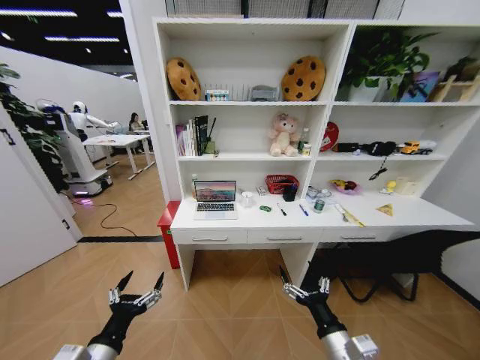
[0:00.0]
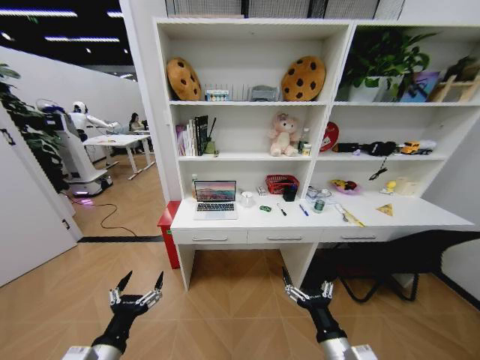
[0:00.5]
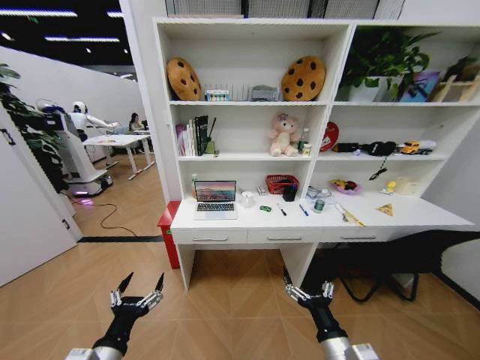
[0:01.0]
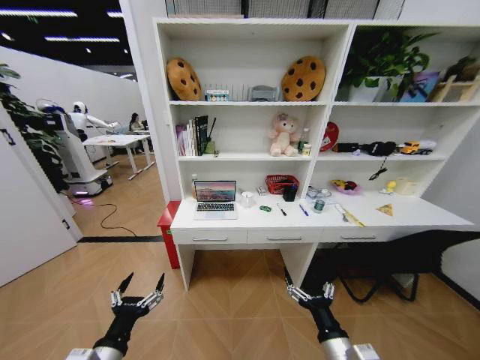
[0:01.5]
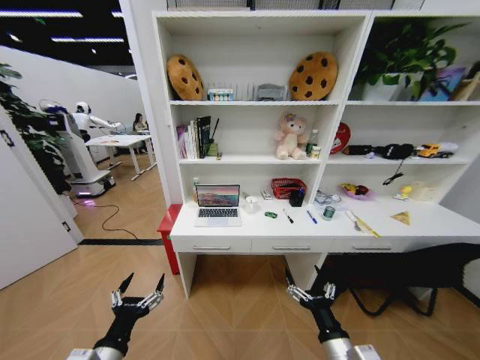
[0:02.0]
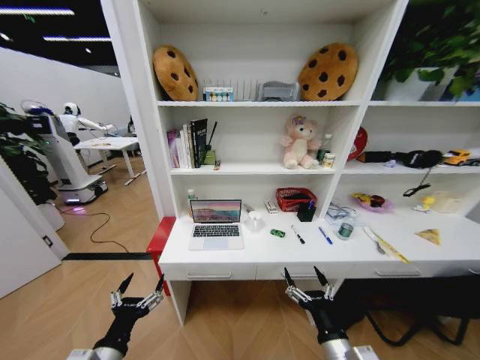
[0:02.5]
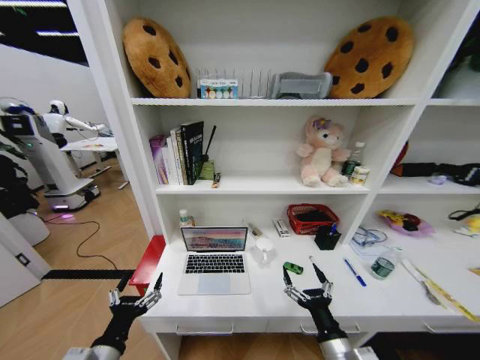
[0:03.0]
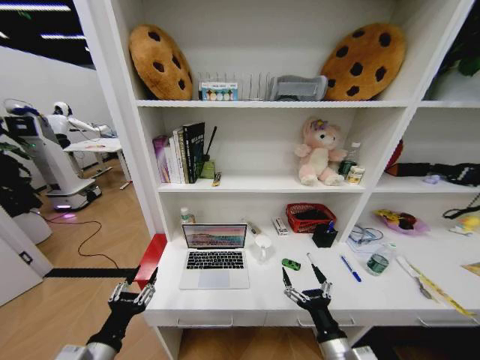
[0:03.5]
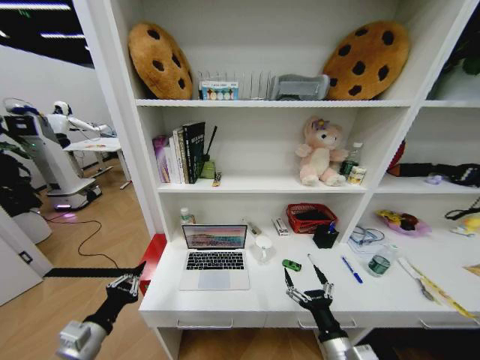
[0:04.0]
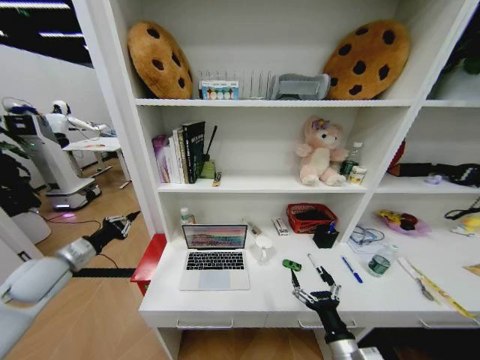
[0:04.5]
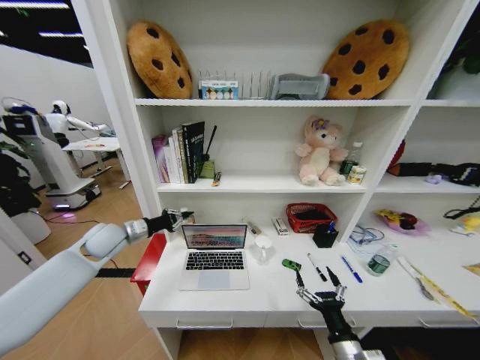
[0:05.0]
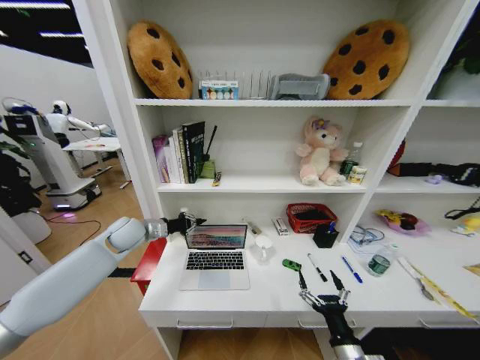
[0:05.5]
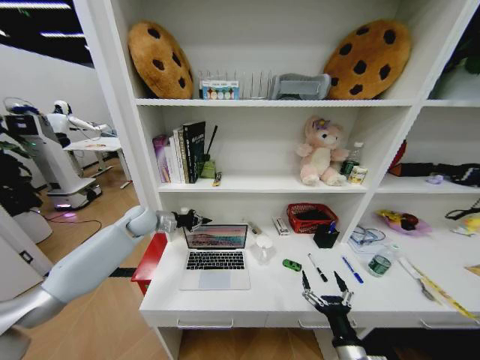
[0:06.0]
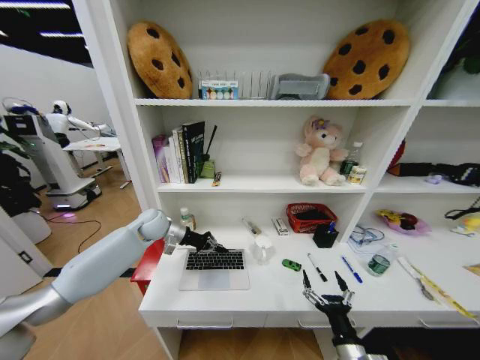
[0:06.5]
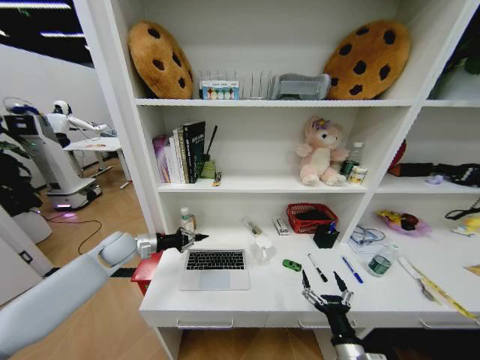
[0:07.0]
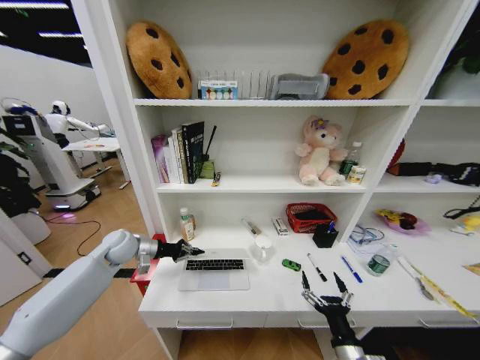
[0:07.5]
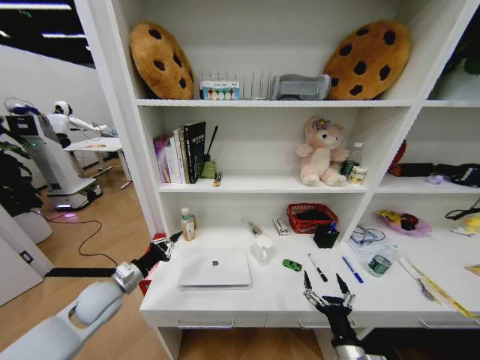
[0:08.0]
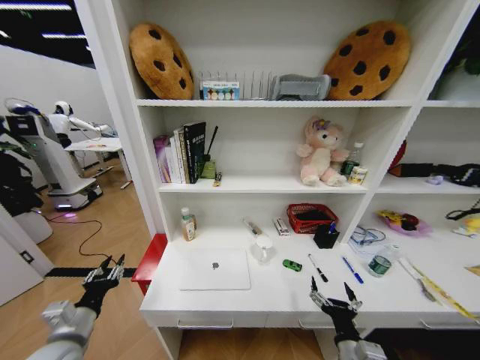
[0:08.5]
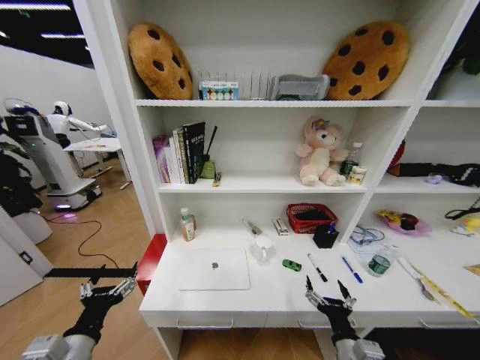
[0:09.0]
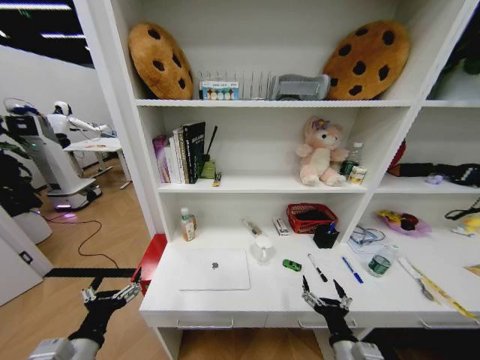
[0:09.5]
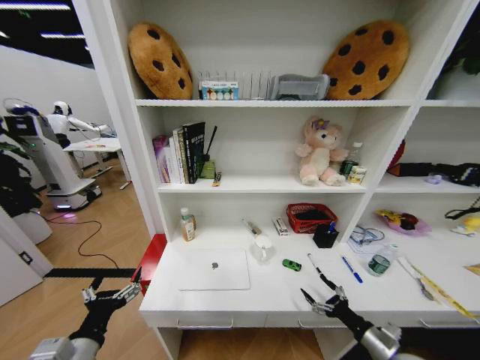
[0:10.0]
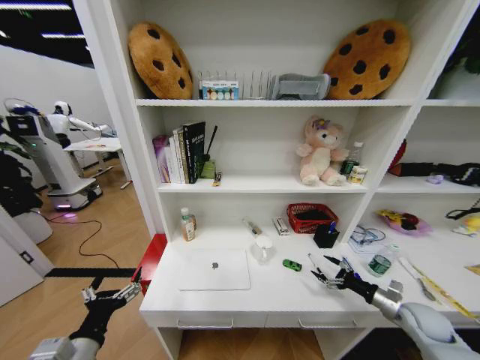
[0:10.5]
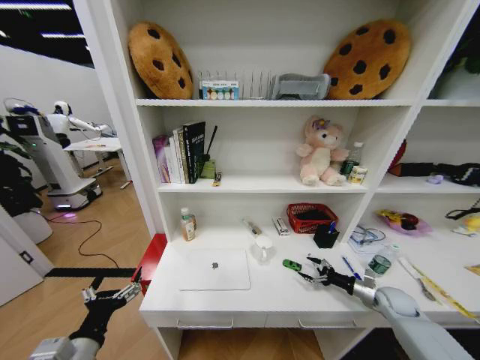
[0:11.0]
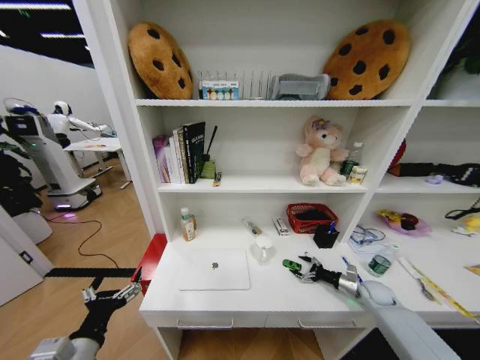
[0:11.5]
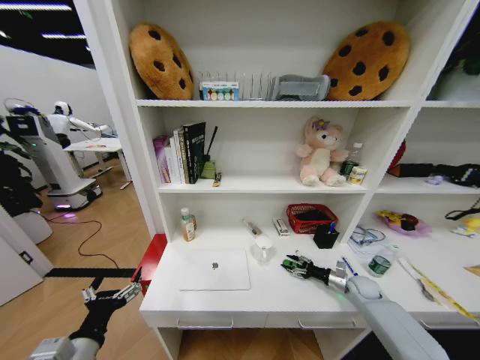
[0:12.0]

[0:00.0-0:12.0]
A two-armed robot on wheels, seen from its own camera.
Task of the whole recording: Organize the objects on the table.
0:02.0 to 0:04.0: The left gripper goes about 5 cm to the left, and closes up.
0:04.0 to 0:06.0: The left gripper travels forward by about 35 cm.
0:06.0 to 0:08.0: The left gripper travels backward and downward by approximately 25 cm.
0:08.0 to 0:10.0: The left gripper is displaced backward by approximately 20 cm, and opens. Meanwhile the right gripper shifts approximately 15 cm to the right.
0:10.0 to 0:12.0: The right gripper moves forward, about 25 cm.

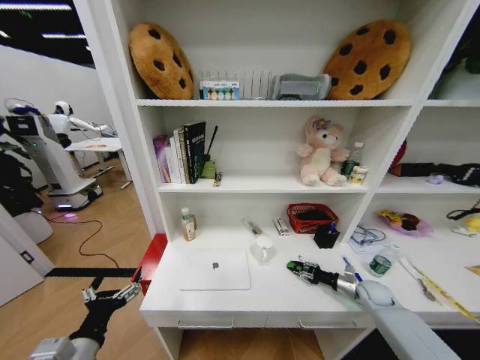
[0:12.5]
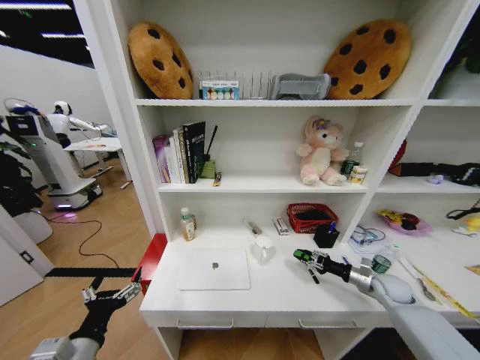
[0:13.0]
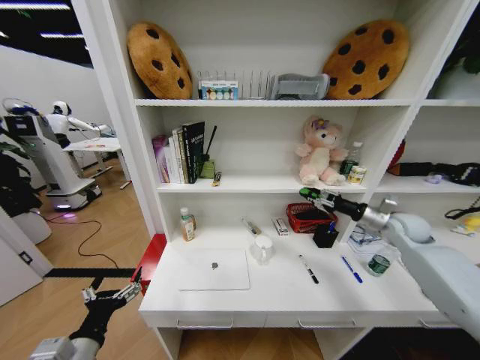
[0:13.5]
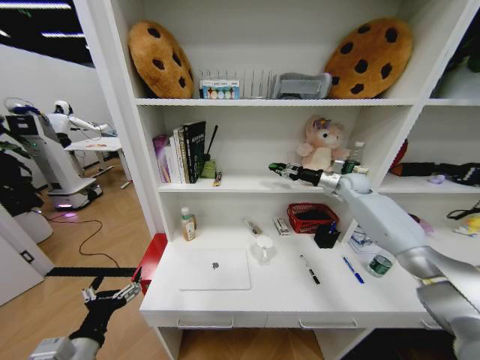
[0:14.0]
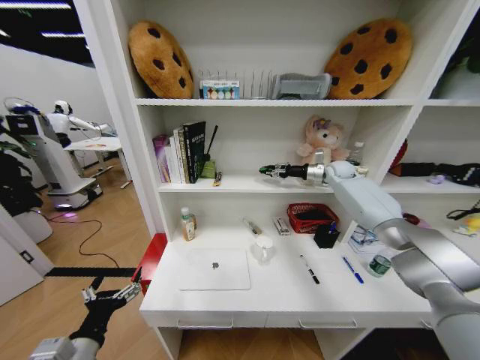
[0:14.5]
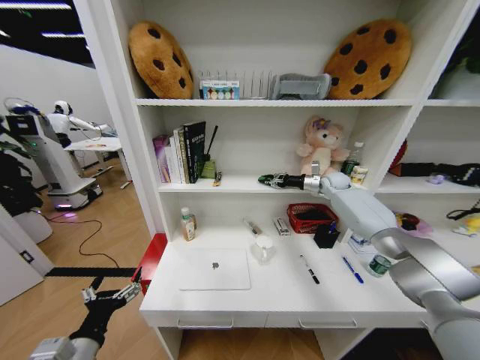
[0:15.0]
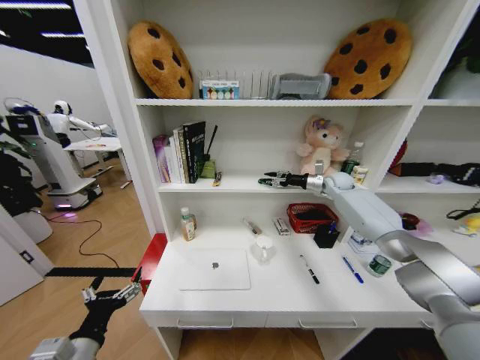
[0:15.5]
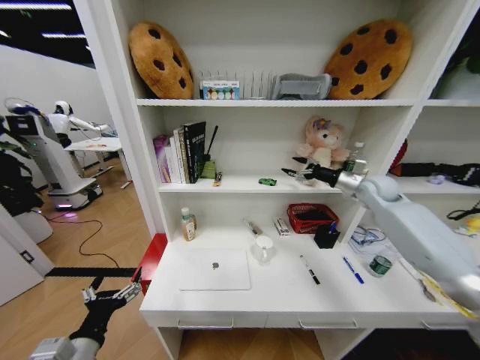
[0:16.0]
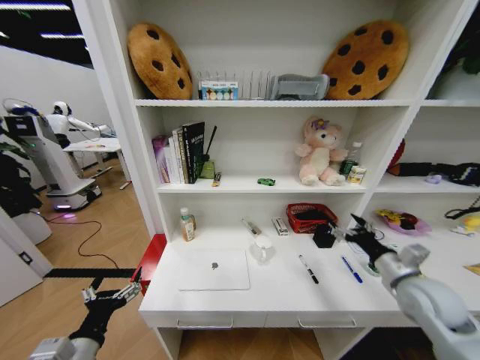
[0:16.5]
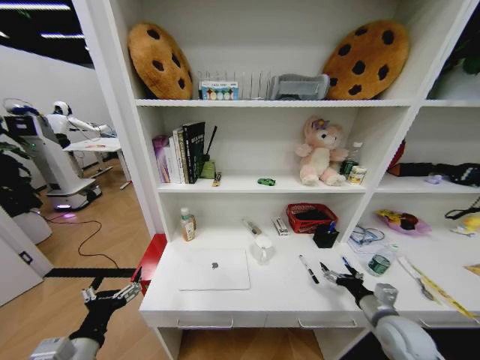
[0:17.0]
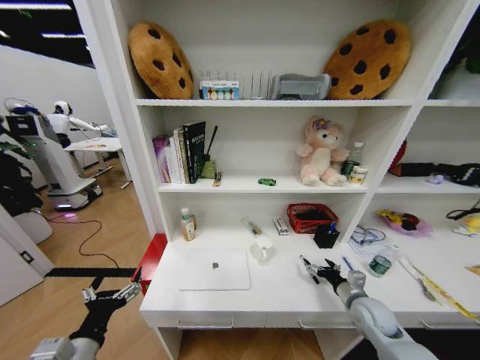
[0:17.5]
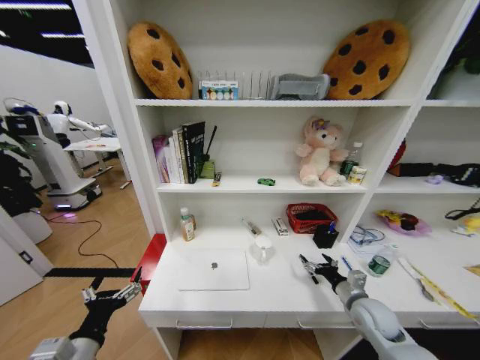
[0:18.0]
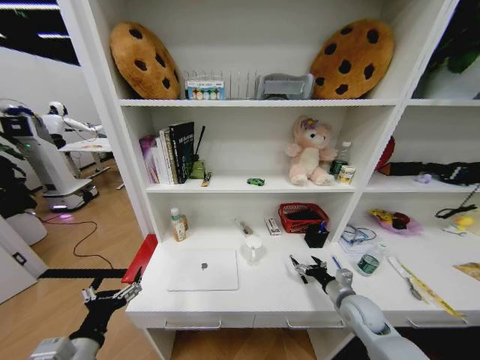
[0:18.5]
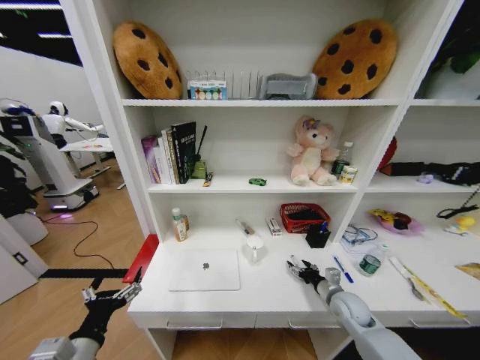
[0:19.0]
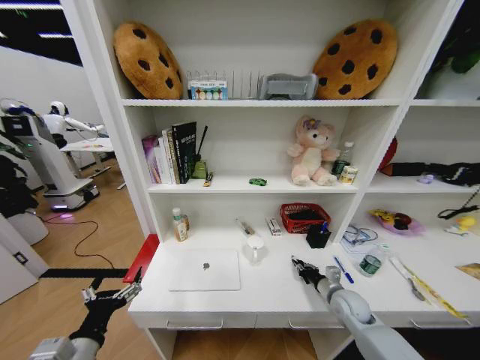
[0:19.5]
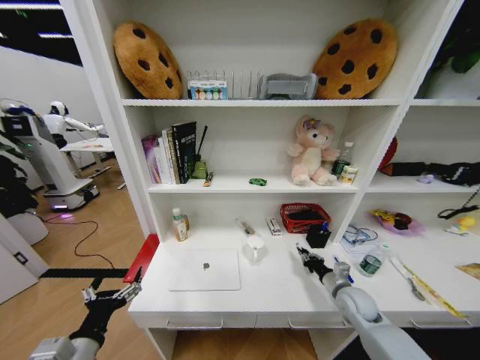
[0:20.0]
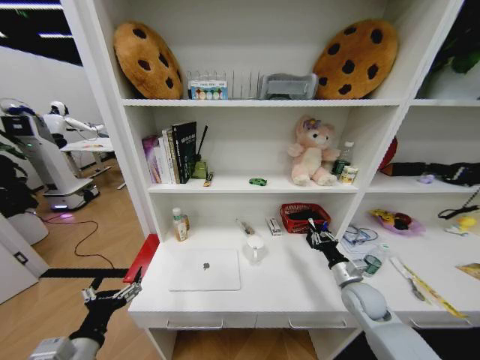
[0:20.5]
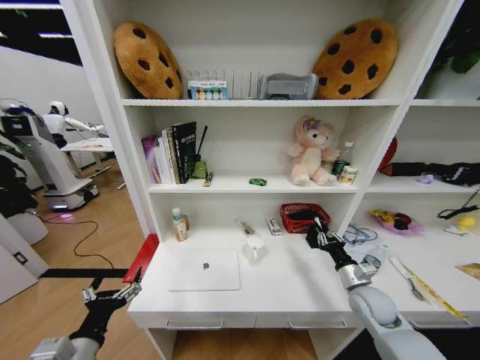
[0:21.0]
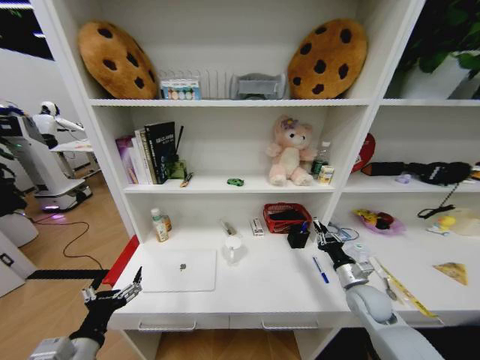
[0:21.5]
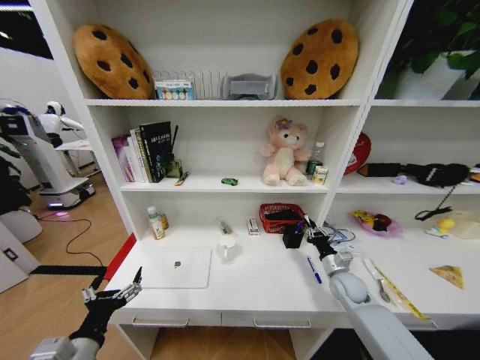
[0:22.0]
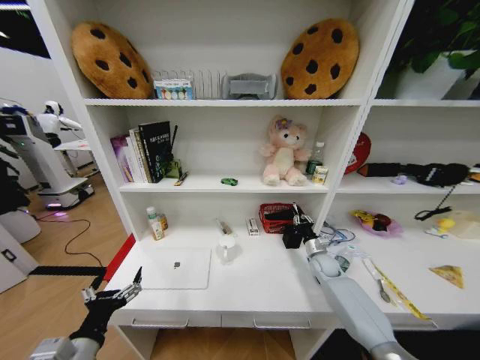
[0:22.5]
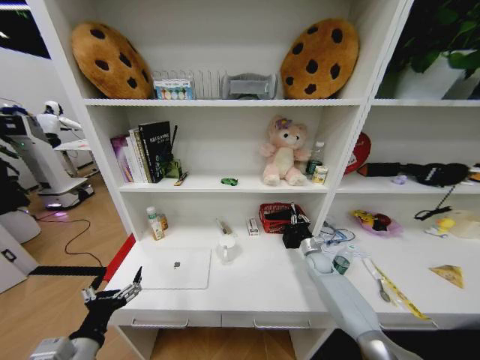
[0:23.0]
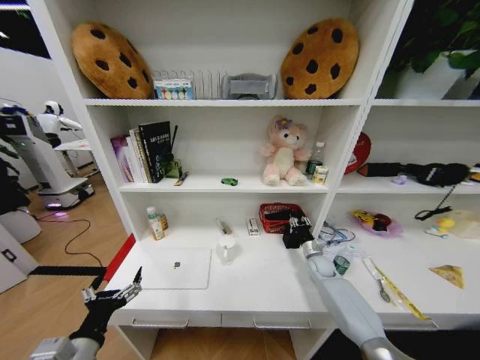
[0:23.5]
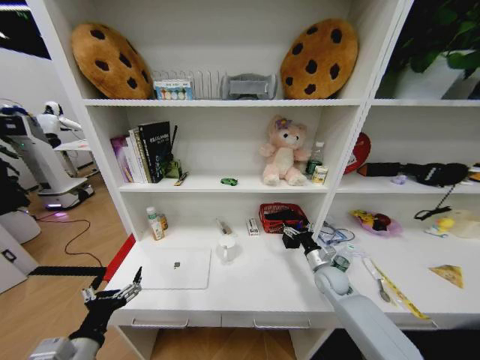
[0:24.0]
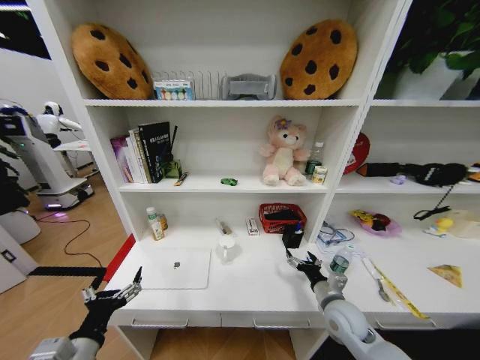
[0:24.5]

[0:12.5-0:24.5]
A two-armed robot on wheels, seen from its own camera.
Task of the whole recording: Organize the objects on the table.
0:12.5 to 0:14.5: The right gripper moves upward and forward, about 40 cm.
0:14.5 to 0:16.5: The right gripper goes some 40 cm backward, and opens its fingers.
0:16.5 to 0:18.5: The right gripper heads downward, covering approximately 15 cm.
0:18.5 to 0:20.5: The right gripper closes up.
0:20.5 to 0:22.5: The right gripper moves forward and downward, some 15 cm.
0:22.5 to 0:24.5: The right gripper goes approximately 20 cm backward, and opens.

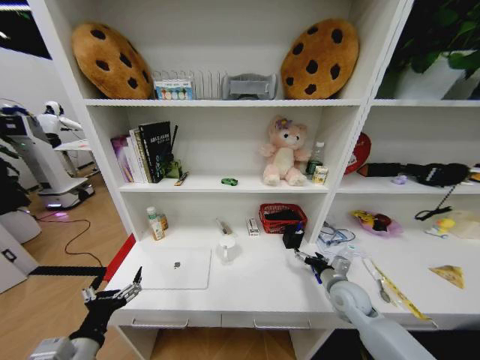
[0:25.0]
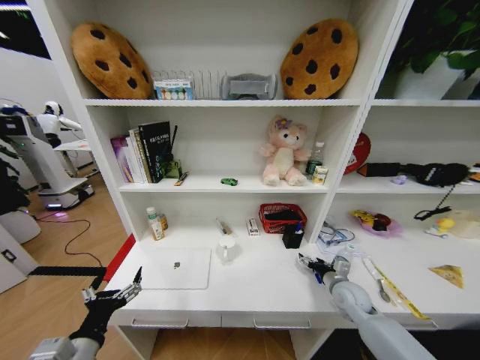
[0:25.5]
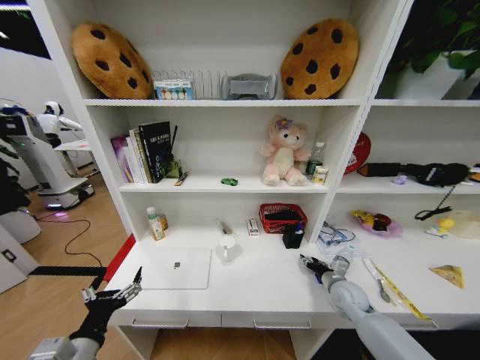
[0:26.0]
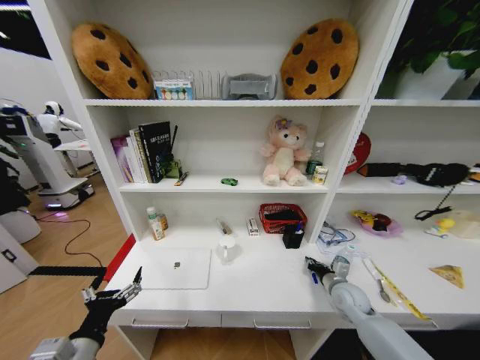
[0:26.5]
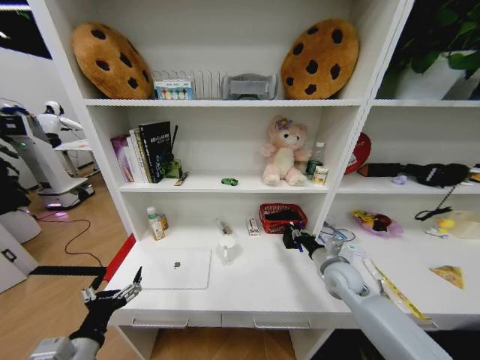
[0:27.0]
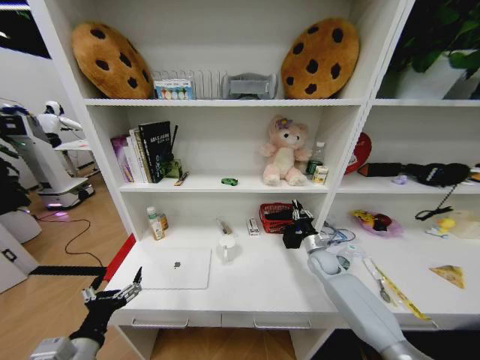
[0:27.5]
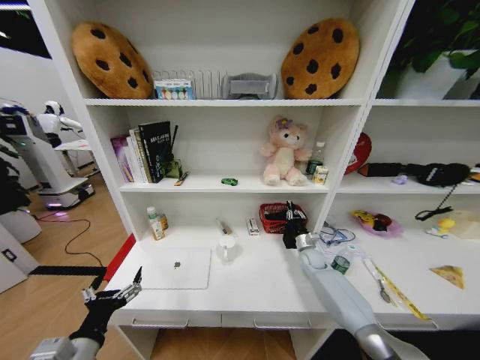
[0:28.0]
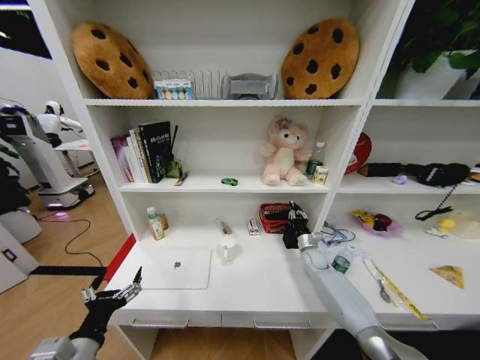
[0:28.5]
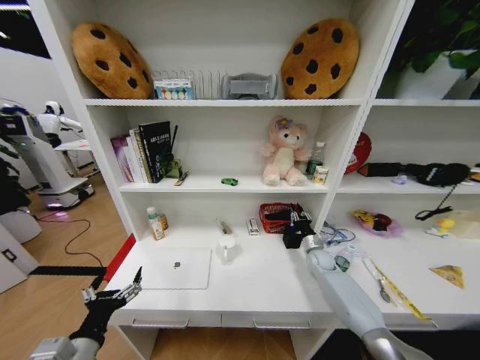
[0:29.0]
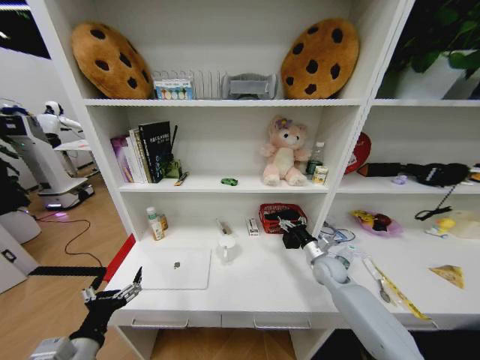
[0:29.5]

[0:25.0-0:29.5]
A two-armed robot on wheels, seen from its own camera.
Task of the whole recording: Organize the objects on the table.
0:25.0 to 0:27.0: The right gripper closes its fingers.
0:27.0 to 0:29.5: The right gripper shifts roughly 10 cm forward and downward, and opens.
